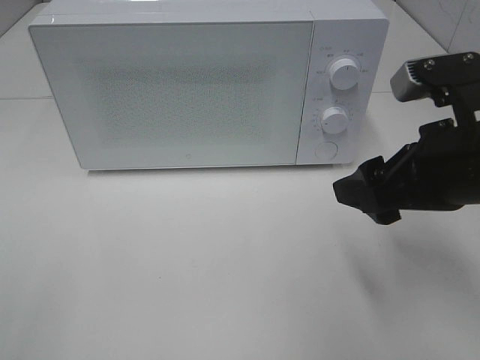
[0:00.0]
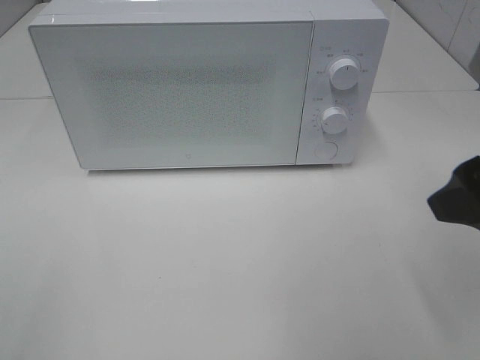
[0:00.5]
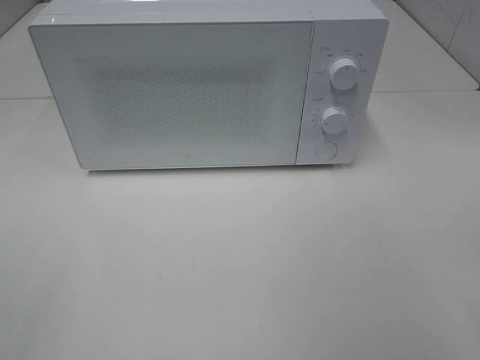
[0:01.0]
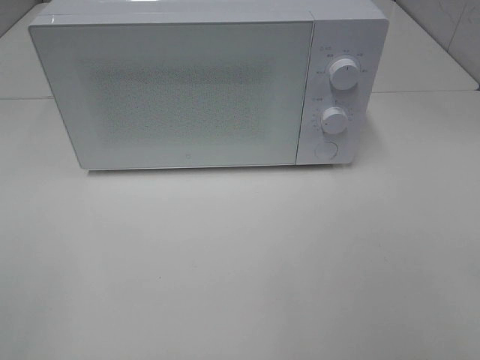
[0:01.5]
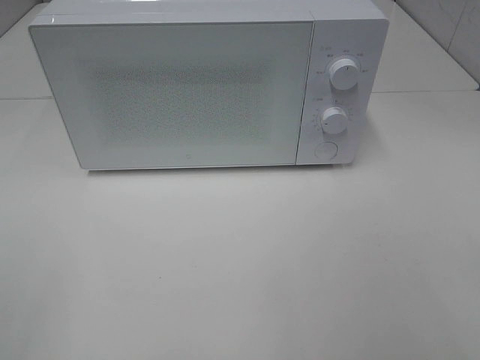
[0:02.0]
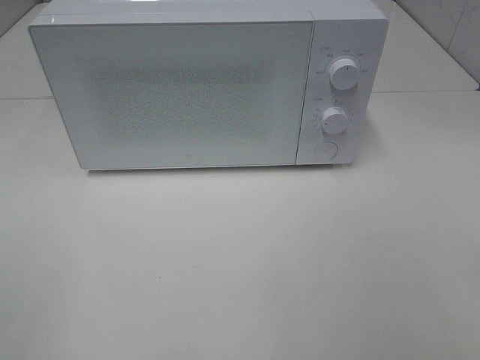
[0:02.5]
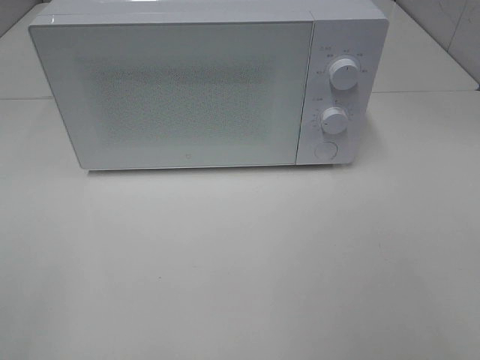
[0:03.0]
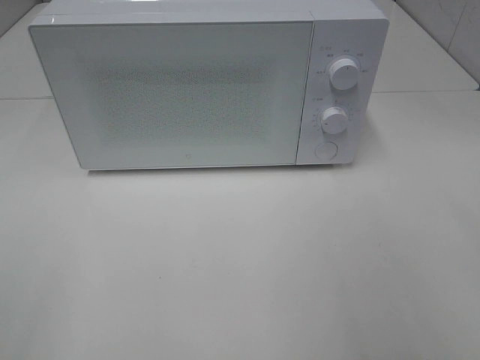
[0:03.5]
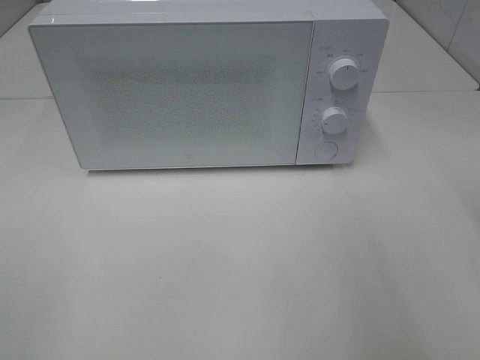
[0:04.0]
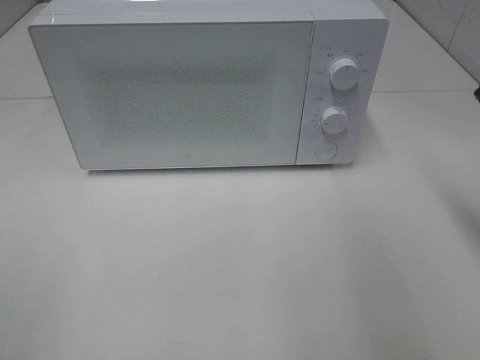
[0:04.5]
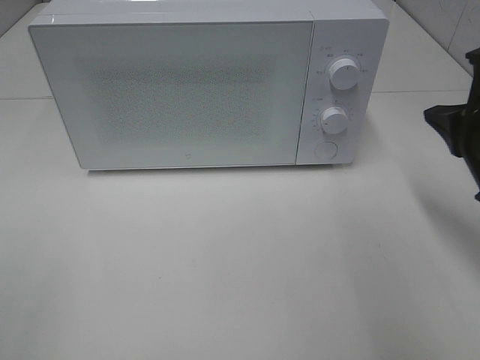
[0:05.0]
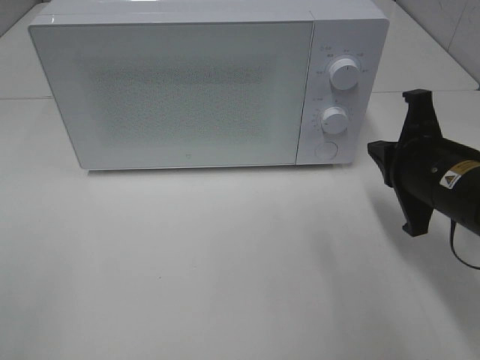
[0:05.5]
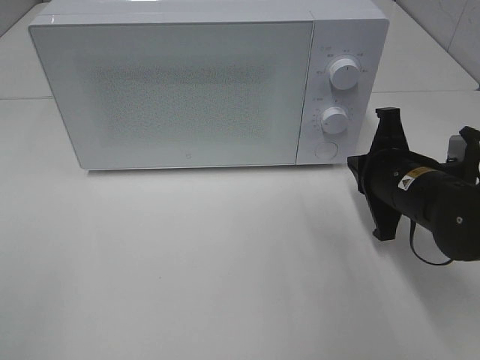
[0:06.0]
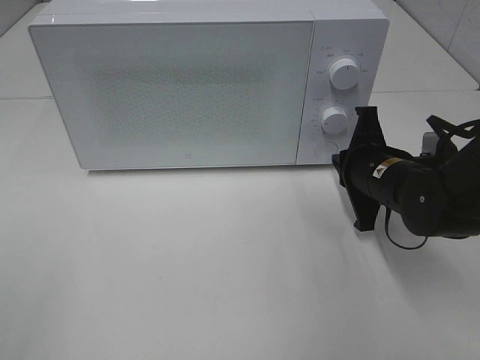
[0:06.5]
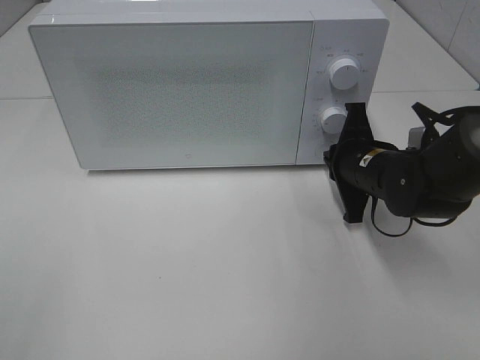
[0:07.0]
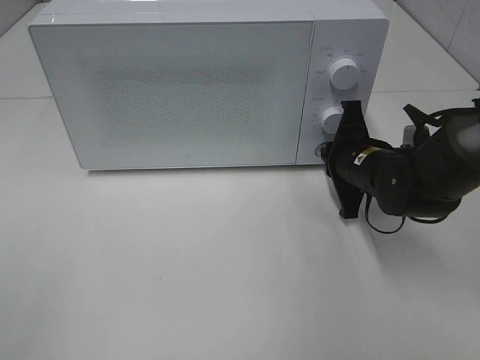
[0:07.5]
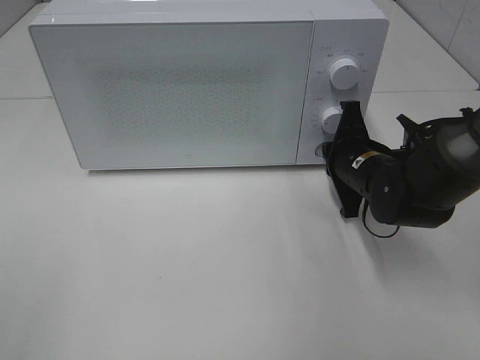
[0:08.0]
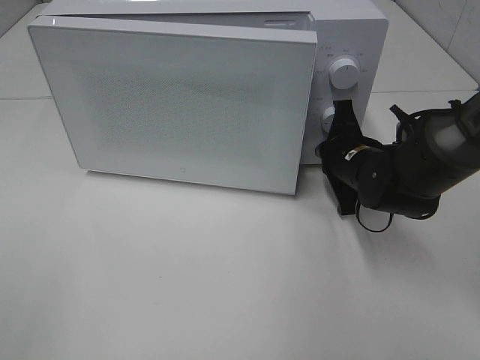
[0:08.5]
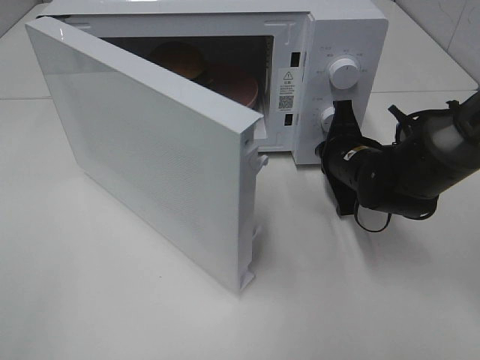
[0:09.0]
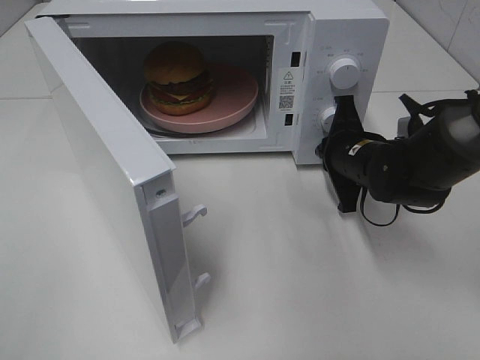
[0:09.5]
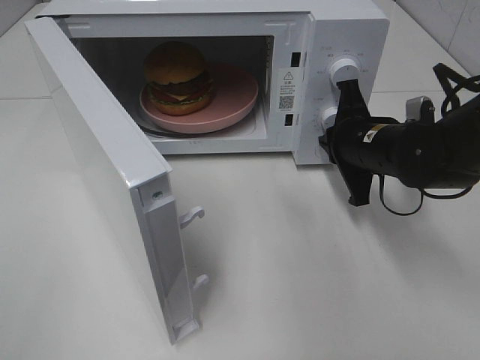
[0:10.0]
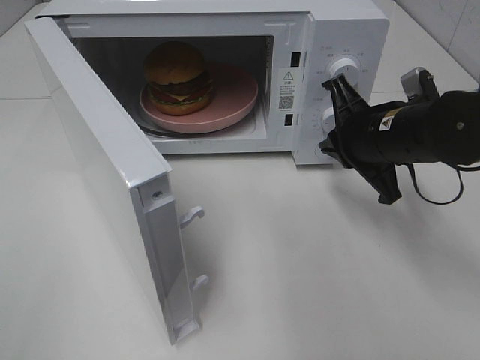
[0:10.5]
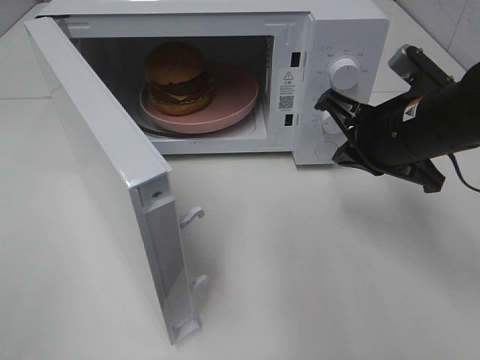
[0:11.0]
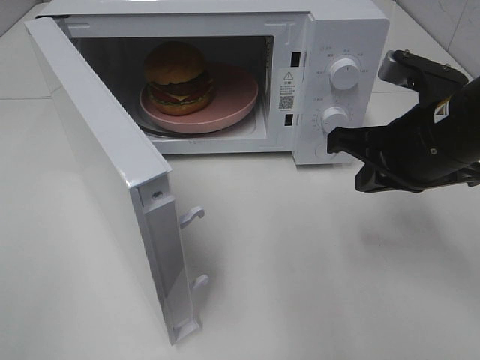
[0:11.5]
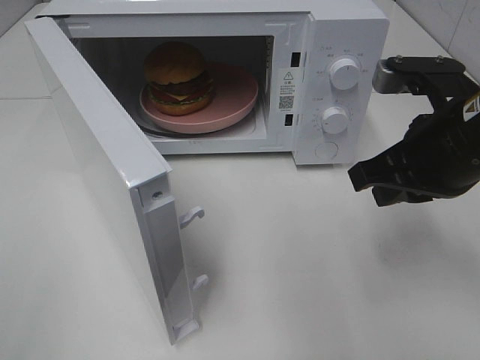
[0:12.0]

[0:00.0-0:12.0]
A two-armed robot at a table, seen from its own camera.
Task of the whole recording: Heat the burger.
Step, 0:00.0 to 0:09.5: Right hand: press the switch.
0:00.0 to 0:02.0: The right gripper heads backward and to the right, covering roughly 20 cm.
0:04.0 to 0:06.0: The right gripper is displaced downward, forward and to the left by approximately 20 cm.
0:06.0 to 0:08.0: The right gripper shifts approximately 5 cm forward.
0:10.0 to 0:12.0: The right gripper travels backward and upward by roughly 15 cm.

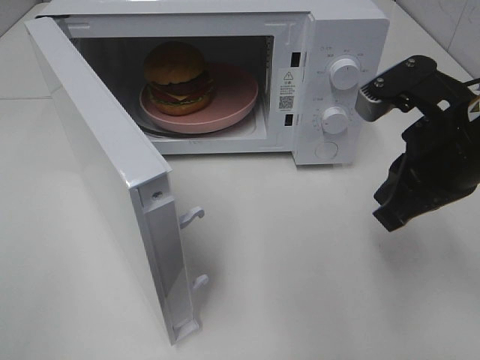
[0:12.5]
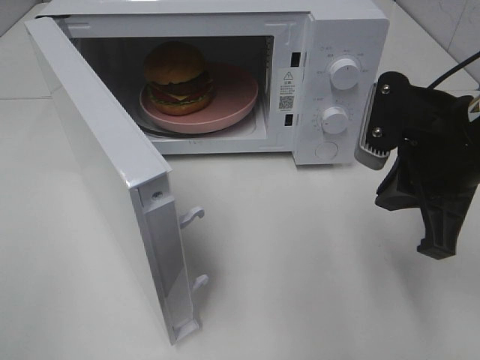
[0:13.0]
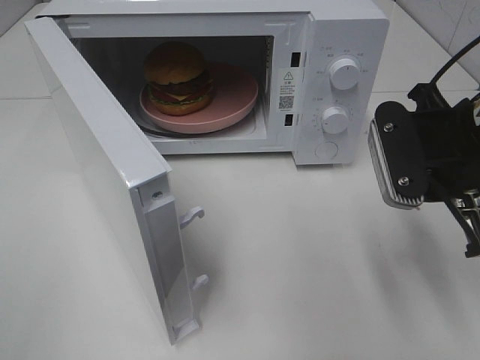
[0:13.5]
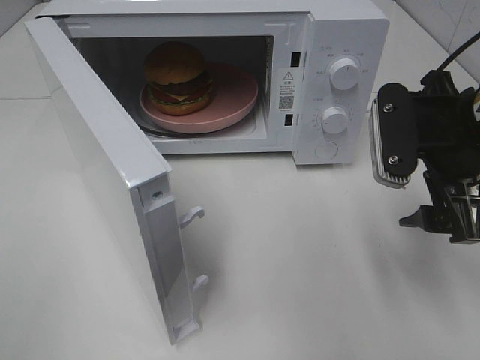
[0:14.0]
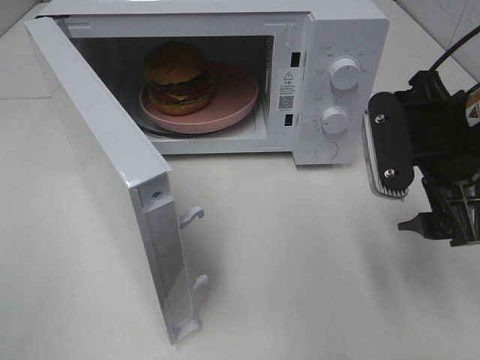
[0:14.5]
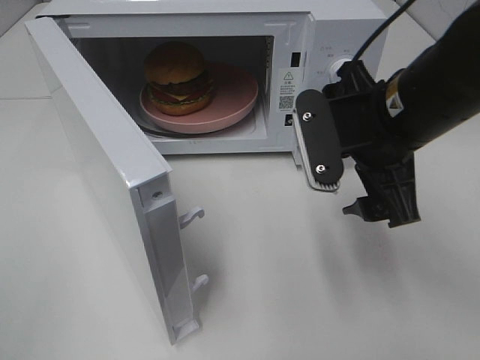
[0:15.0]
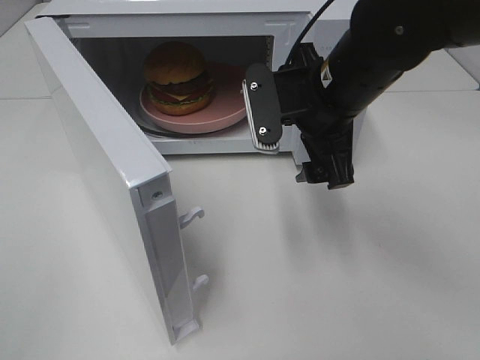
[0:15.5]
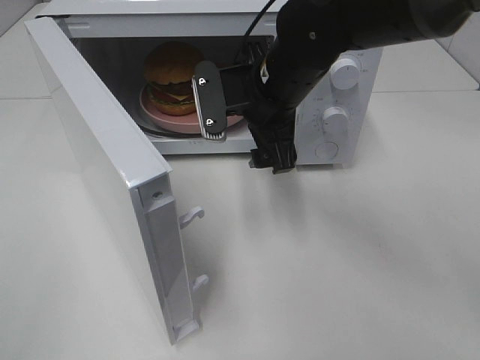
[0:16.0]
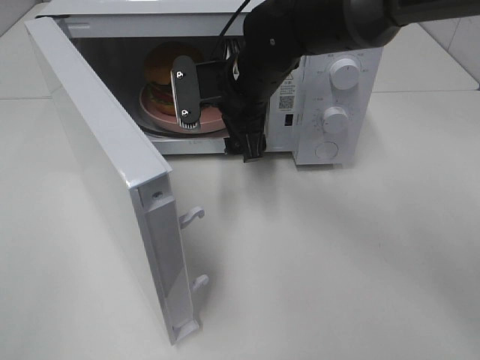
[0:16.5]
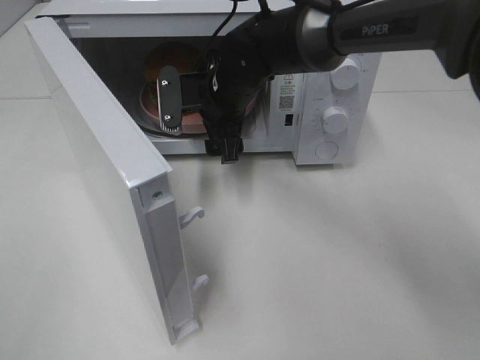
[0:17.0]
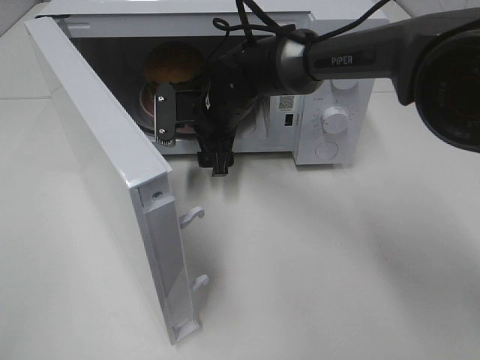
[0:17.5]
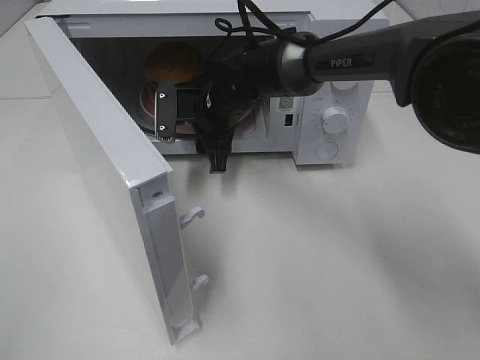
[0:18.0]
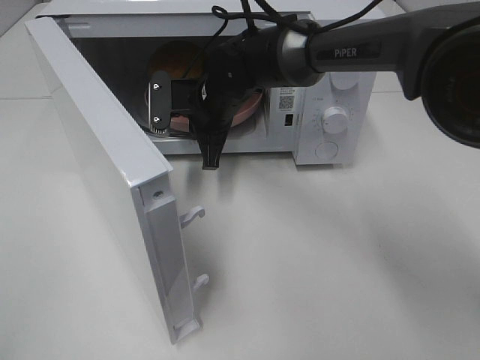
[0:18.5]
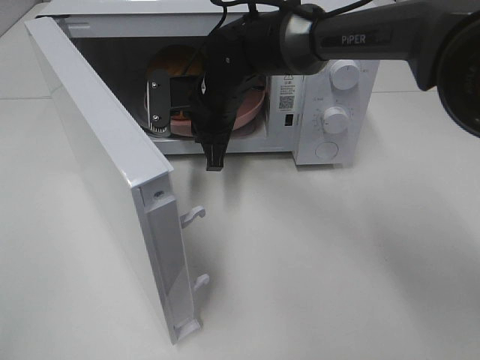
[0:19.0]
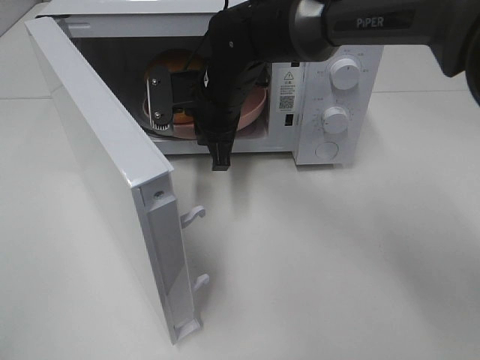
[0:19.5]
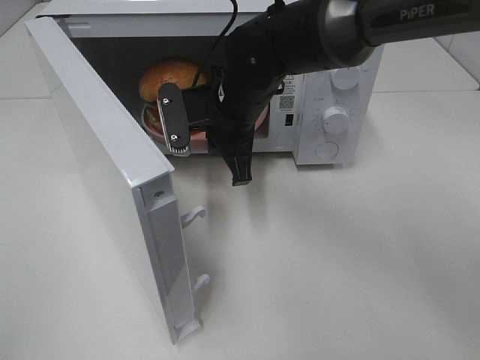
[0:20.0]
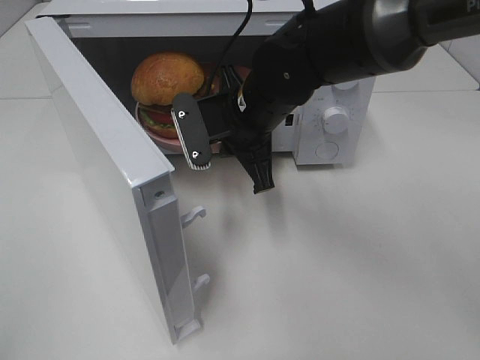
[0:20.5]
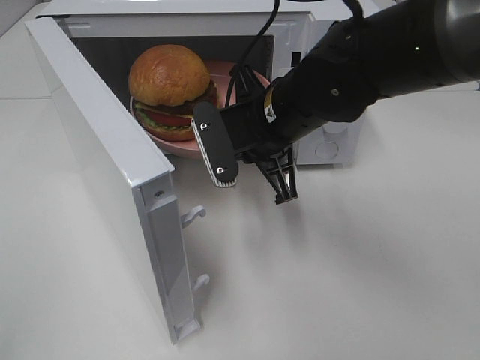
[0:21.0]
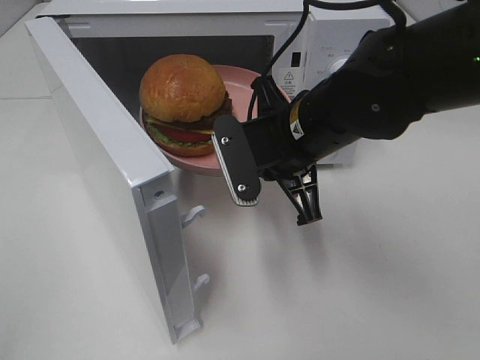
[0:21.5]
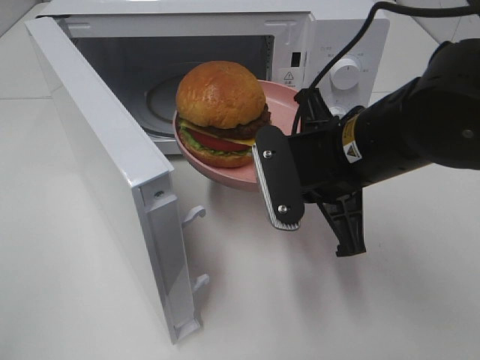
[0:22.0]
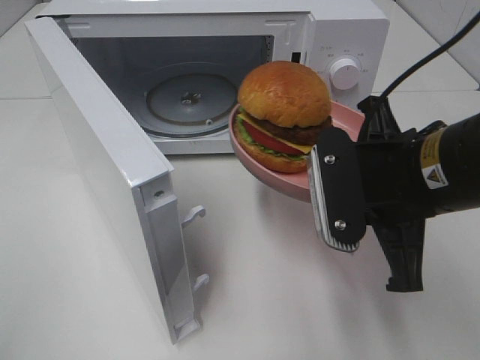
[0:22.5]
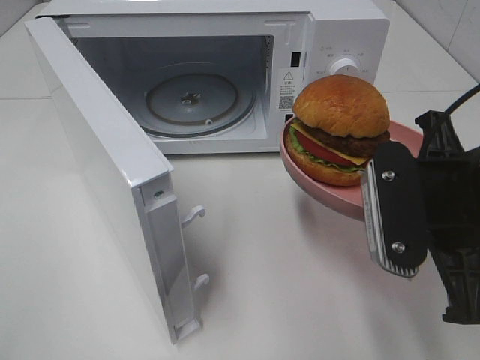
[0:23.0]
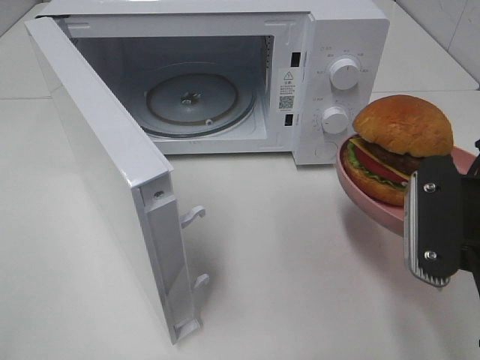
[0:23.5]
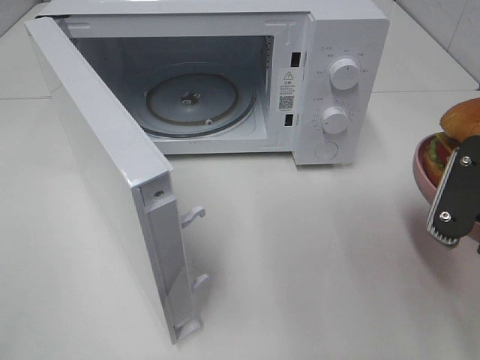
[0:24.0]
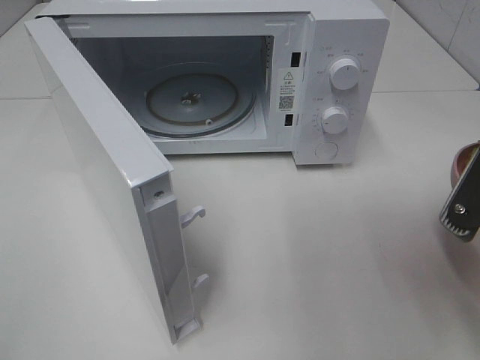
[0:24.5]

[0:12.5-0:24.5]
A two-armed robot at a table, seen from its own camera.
Task of the whole recording: Heat the burger.
Step, 0:12.5 to 0:18.0: Right hand: grab the plate with the hamburger.
0:12.5 to 0:14.5: The right gripper opens.
0:14.5 to 0:16.5: The right gripper moves to the left and forward, some 25 cm.
0:16.5 to 0:18.5: The right gripper travels downward by roughly 5 cm, and closes.
0:18.5 to 0:20.5: The right gripper is displaced backward by approximately 10 cm.
0:20.5 to 0:22.5: The right gripper moves backward and to the right, roughly 20 cm.
0:22.5 to 0:24.5: The right gripper is displaced to the right and backward by some 10 cm.

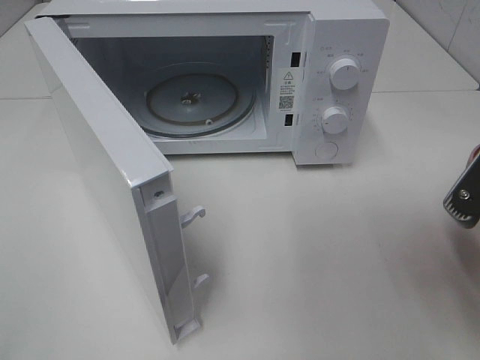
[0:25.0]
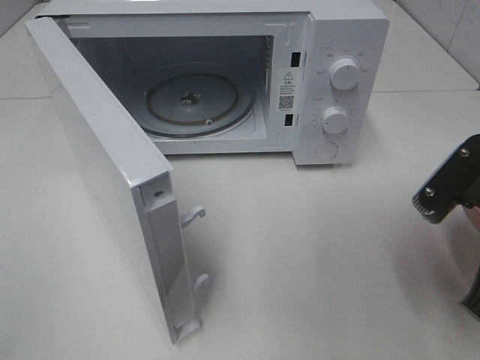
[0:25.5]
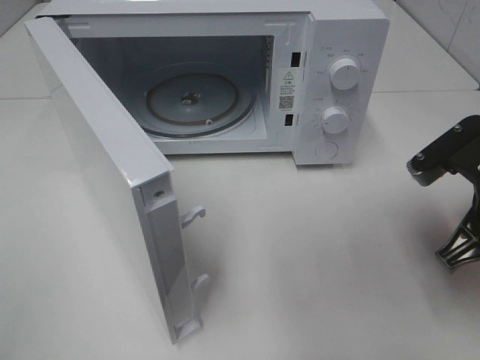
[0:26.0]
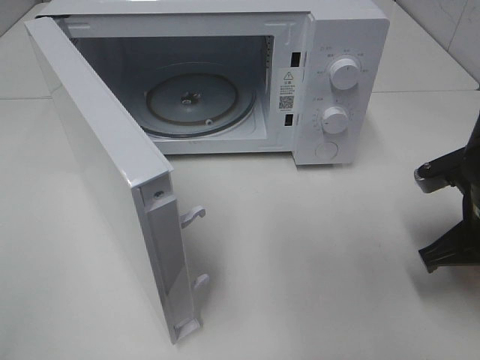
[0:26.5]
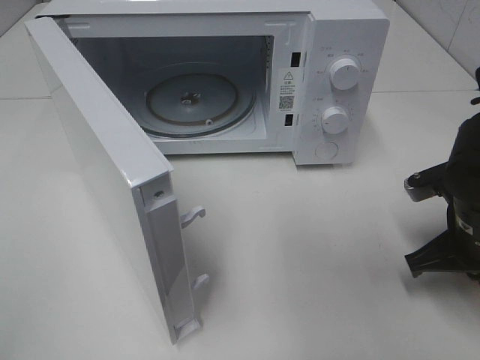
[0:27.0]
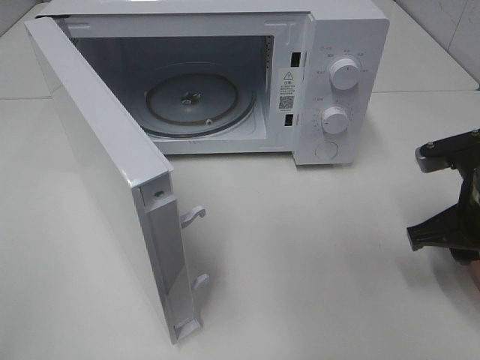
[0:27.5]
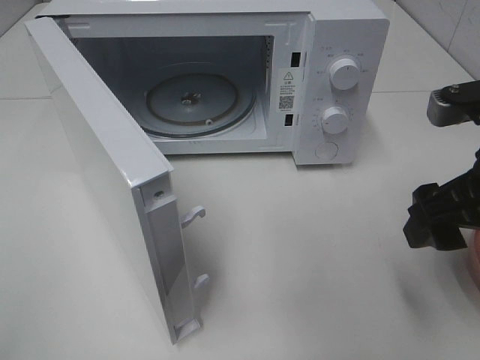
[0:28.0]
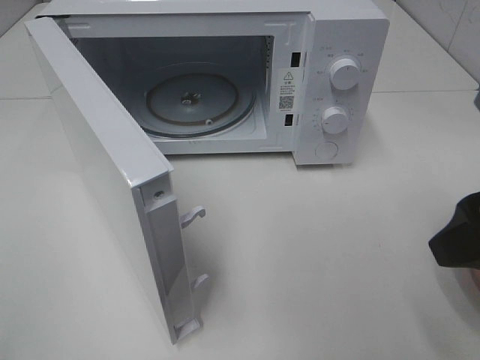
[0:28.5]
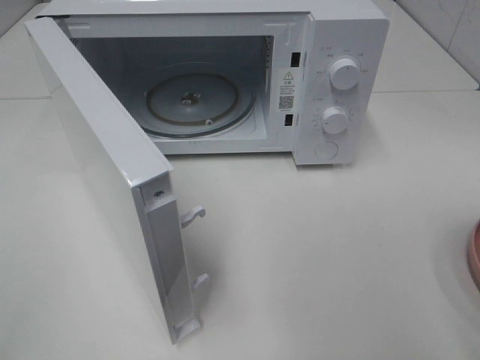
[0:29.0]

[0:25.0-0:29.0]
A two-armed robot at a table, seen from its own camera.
Task of the whole recording: Heat the burger.
Step, 0:25.0 to 0:27.0: Right hand: place the plate on the table.
0:25.0 to 0:27.0: The right gripper heads downward and forward, covering roughly 15 cm.
0:27.0 to 0:29.0: The right gripper goes approximately 25 cm upward and backward, and opens up.
